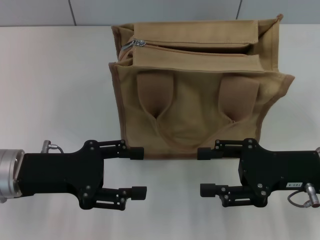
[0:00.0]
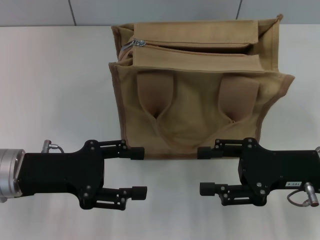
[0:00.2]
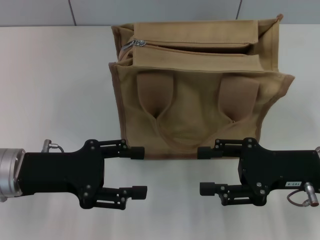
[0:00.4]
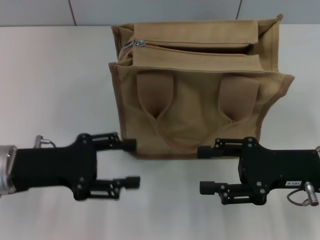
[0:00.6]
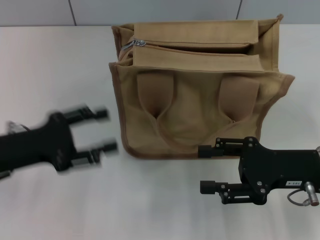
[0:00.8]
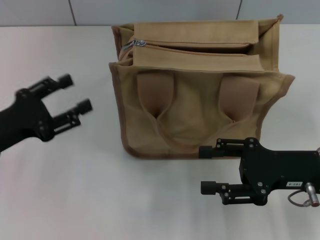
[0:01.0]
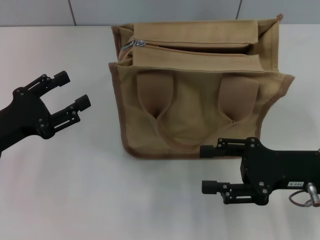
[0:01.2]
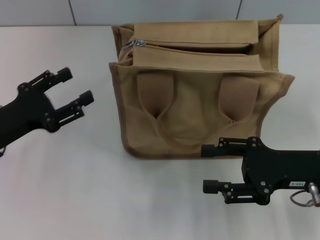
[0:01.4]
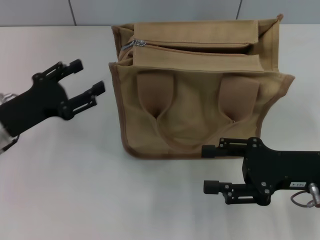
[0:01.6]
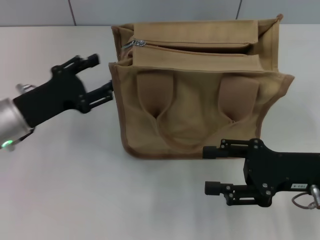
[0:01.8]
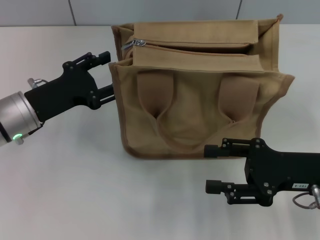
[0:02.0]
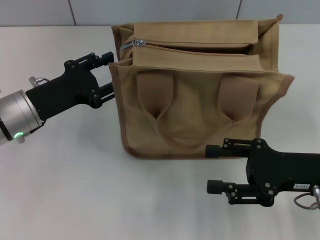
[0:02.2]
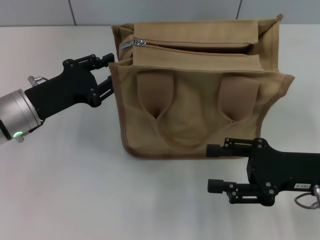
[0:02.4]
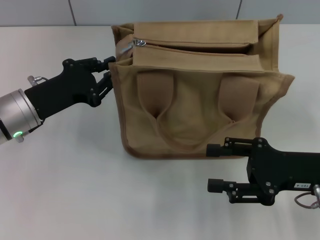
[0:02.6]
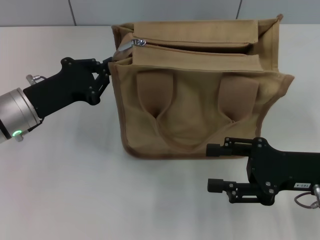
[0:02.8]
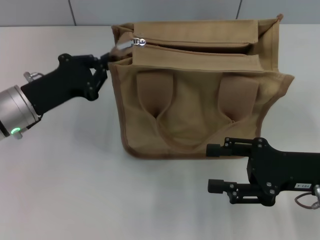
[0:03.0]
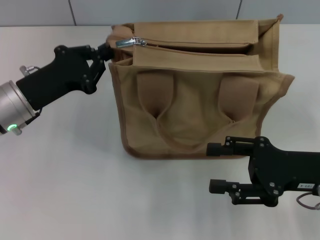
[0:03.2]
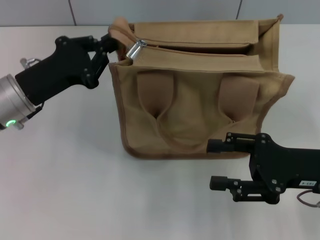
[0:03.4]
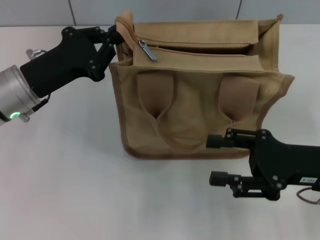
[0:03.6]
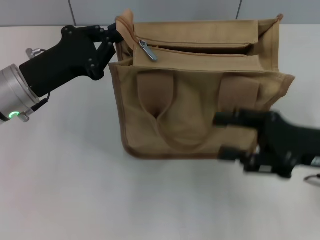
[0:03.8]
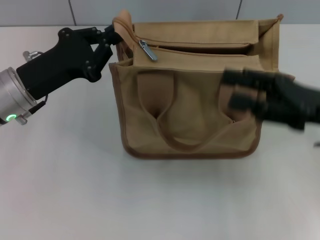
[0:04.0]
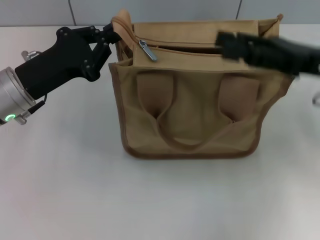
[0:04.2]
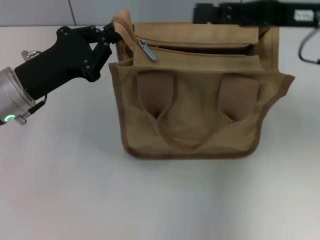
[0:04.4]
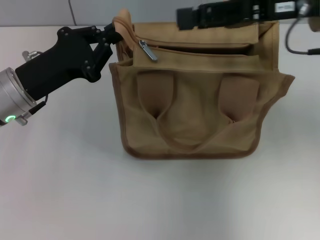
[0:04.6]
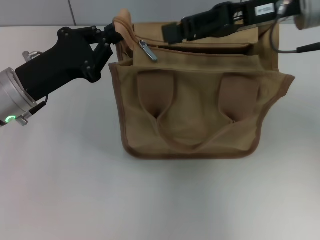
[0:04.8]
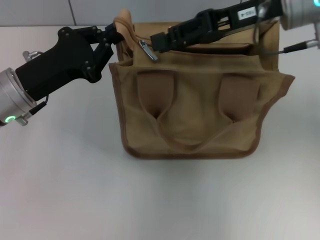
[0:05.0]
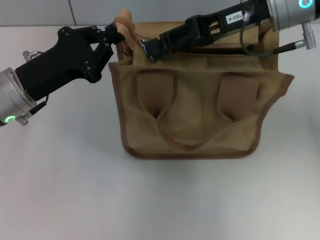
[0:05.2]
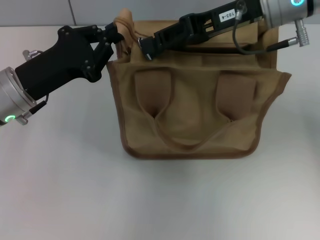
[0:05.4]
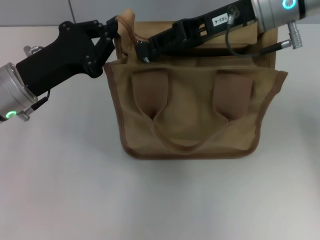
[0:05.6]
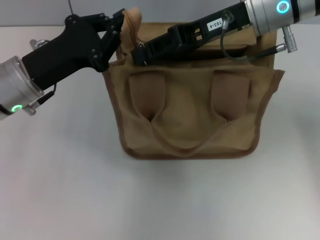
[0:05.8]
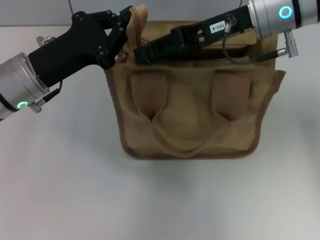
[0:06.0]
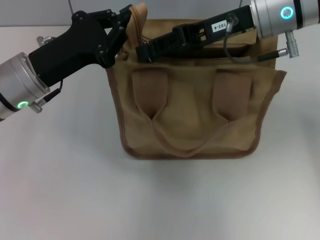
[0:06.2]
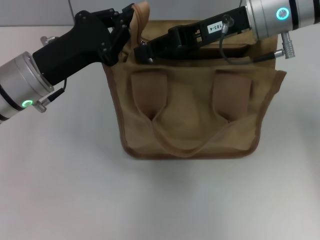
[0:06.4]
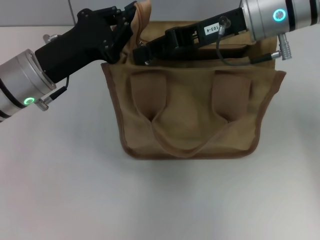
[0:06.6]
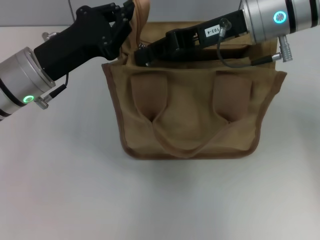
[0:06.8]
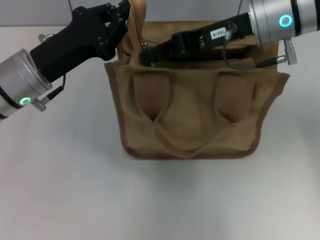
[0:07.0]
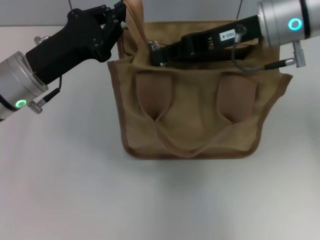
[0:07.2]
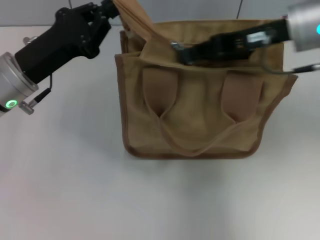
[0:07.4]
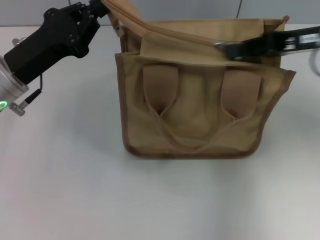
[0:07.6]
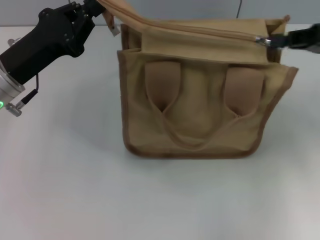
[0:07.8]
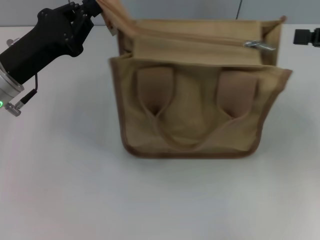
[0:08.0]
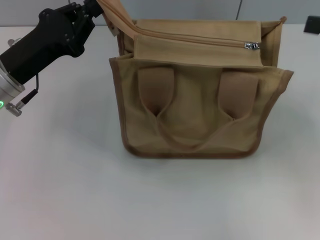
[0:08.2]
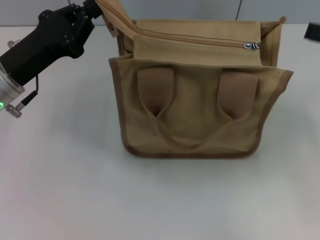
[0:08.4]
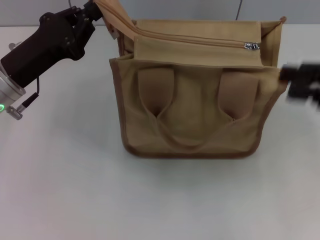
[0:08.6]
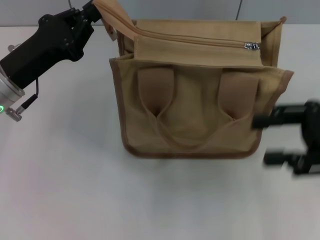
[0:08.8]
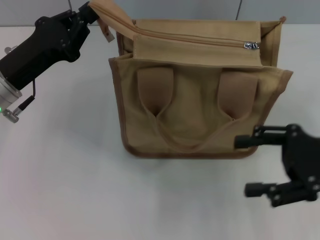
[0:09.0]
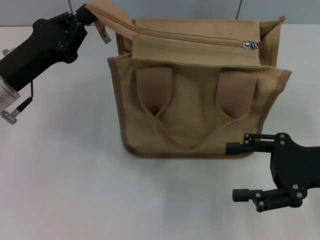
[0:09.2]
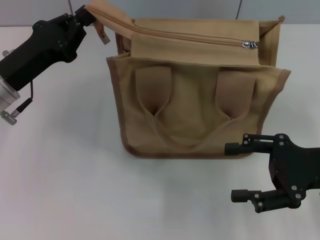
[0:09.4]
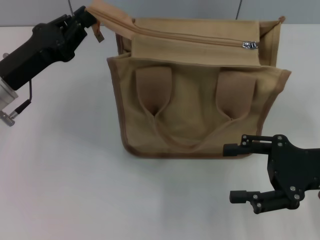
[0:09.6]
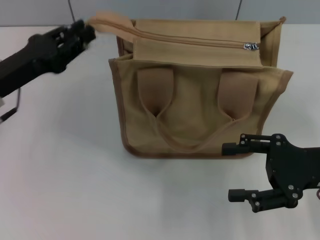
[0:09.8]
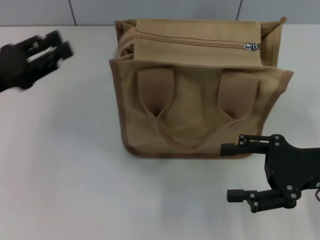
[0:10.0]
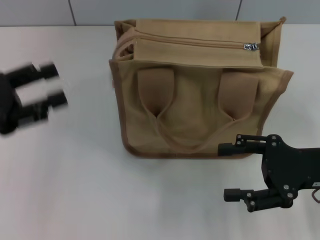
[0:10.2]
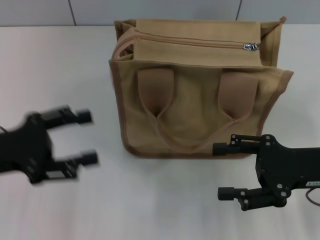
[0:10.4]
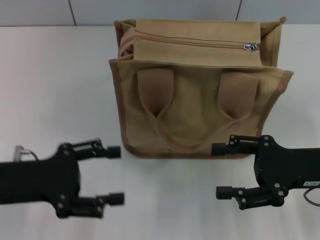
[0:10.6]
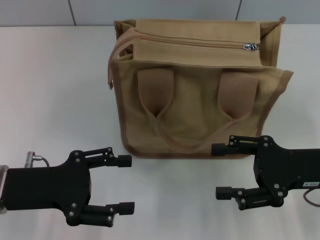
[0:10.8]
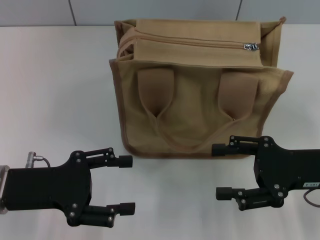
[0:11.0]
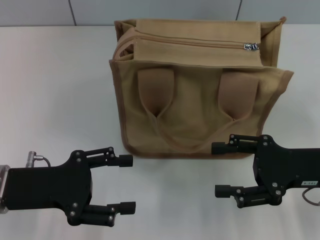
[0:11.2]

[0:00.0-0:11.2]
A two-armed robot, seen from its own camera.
Step, 0:00.0 to 0:07.8: Pull up the zipper with your right hand.
Step, 0:08.0 to 0:09.8: Grab the zipper with your left hand.
0:01.6 to 0:03.2: The left gripper closes.
0:03.2 to 0:04.8: The right gripper is displaced upward, forward and to the left by roughly 20 cm.
0:04.8 to 0:06.4: The right gripper closes its fingers.
0:06.4 to 0:08.0: The right gripper travels to the right by some 20 cm, and closes its fingers.
0:08.0 to 0:09.6: The right gripper shifts approximately 15 cm downward, backward and to the left, and opens.
0:09.6 to 0:11.2: The left gripper heads backward, covering some 10 cm, and opens.
